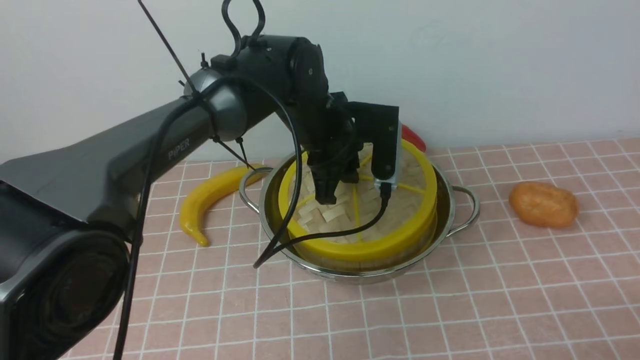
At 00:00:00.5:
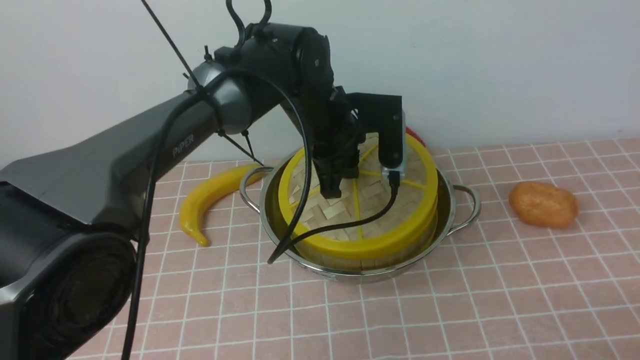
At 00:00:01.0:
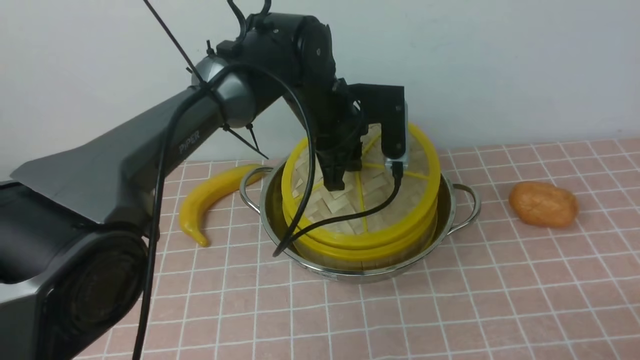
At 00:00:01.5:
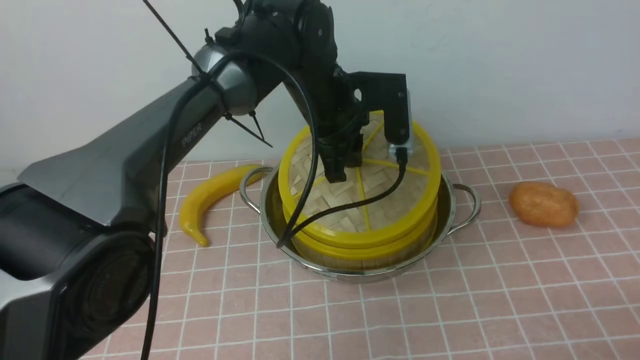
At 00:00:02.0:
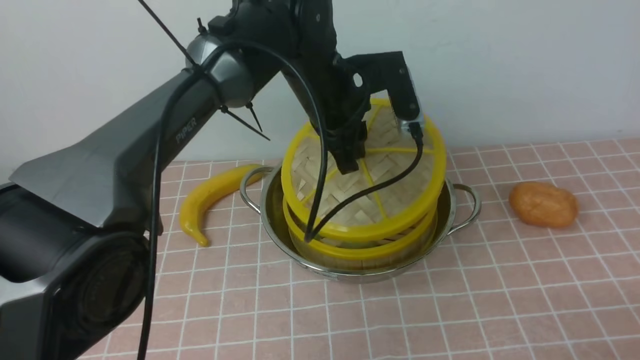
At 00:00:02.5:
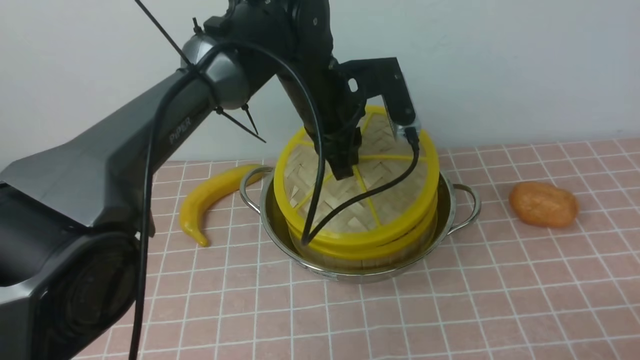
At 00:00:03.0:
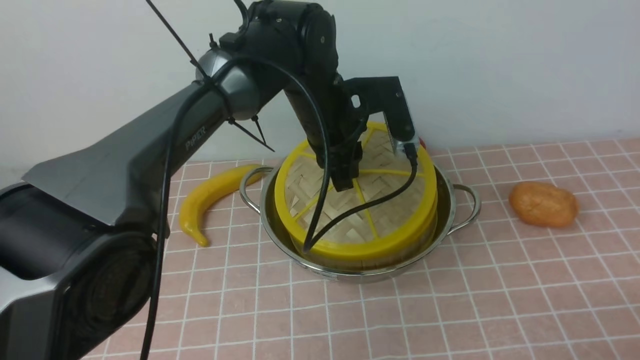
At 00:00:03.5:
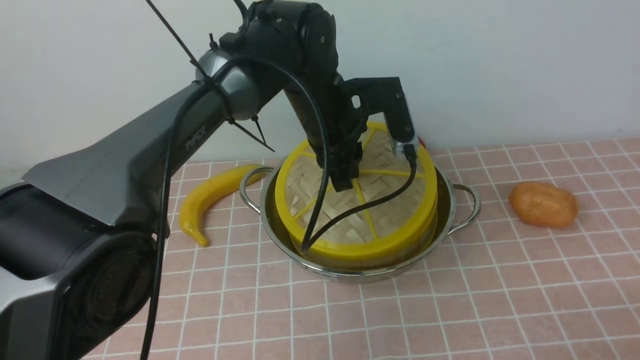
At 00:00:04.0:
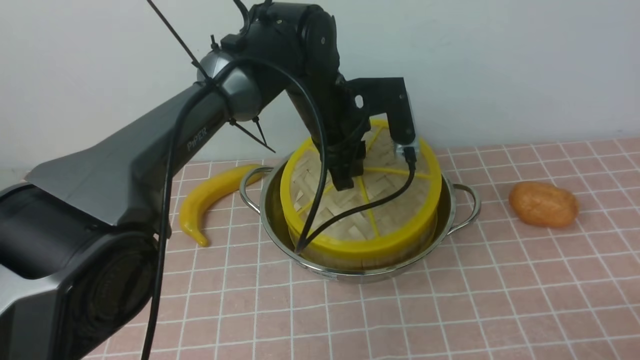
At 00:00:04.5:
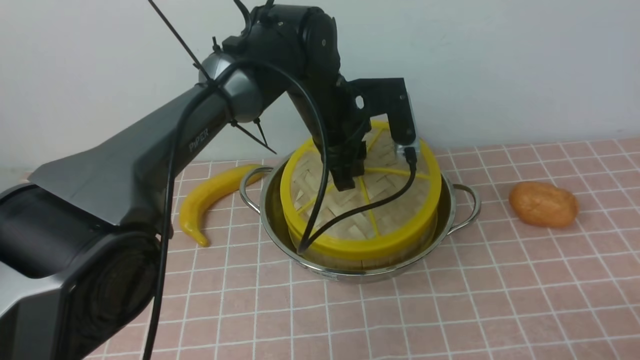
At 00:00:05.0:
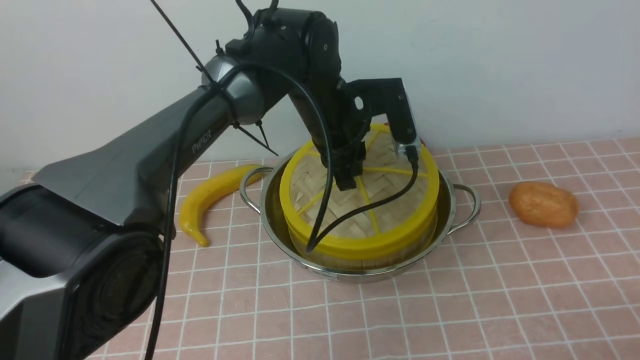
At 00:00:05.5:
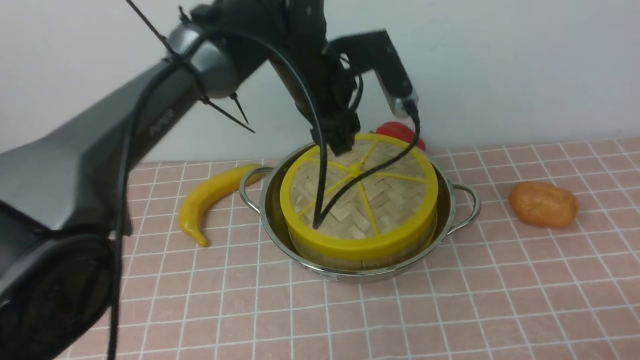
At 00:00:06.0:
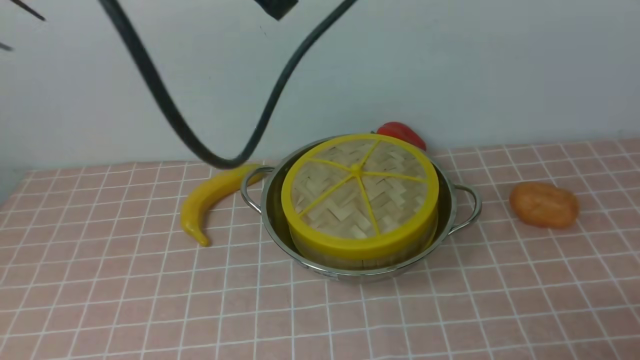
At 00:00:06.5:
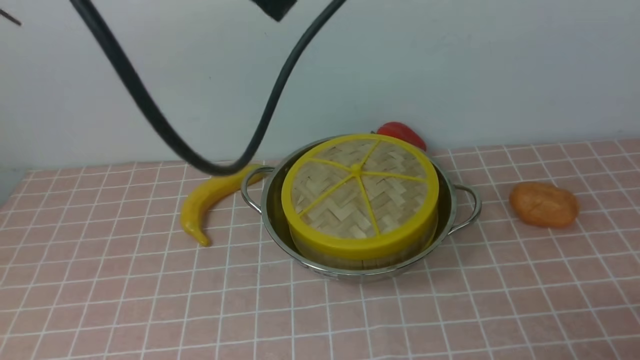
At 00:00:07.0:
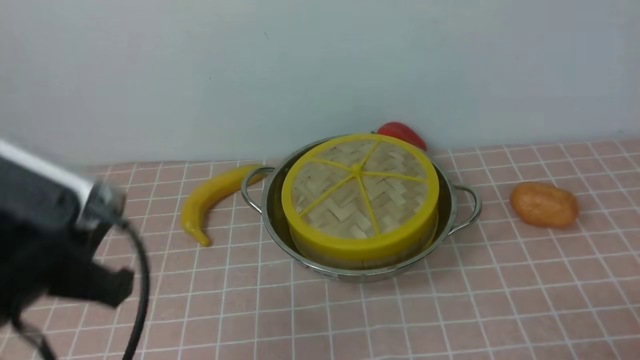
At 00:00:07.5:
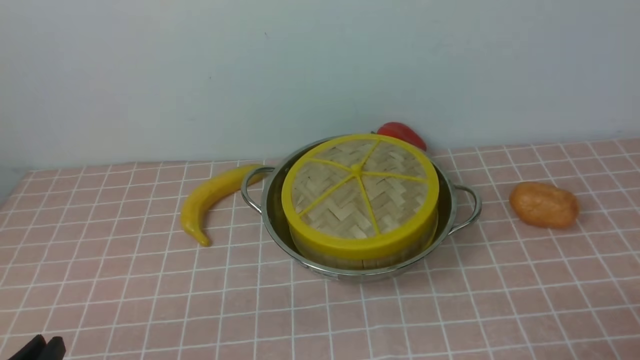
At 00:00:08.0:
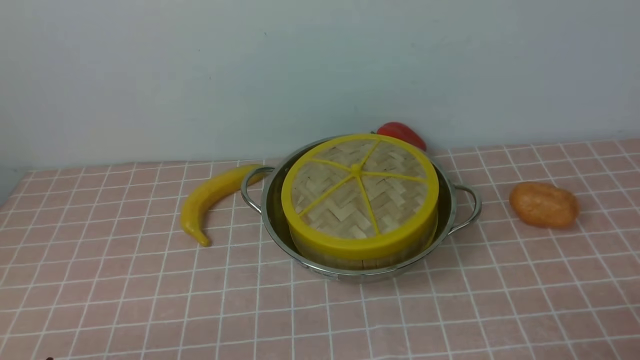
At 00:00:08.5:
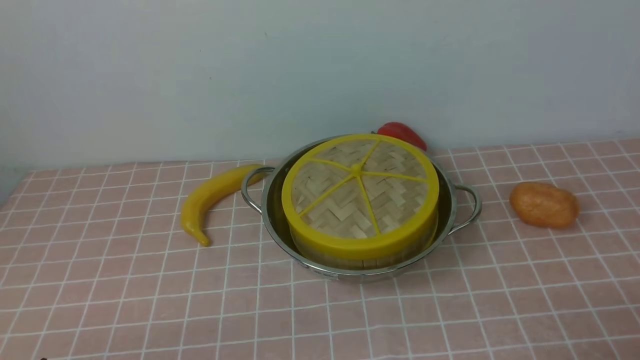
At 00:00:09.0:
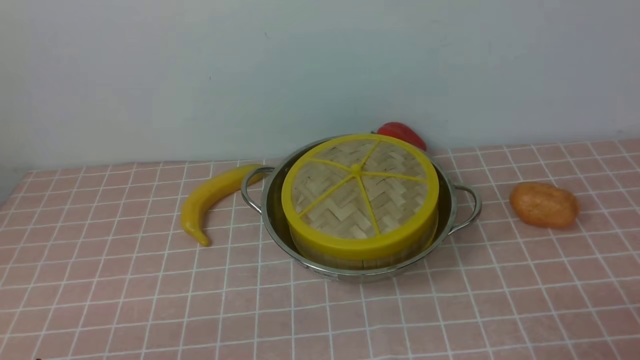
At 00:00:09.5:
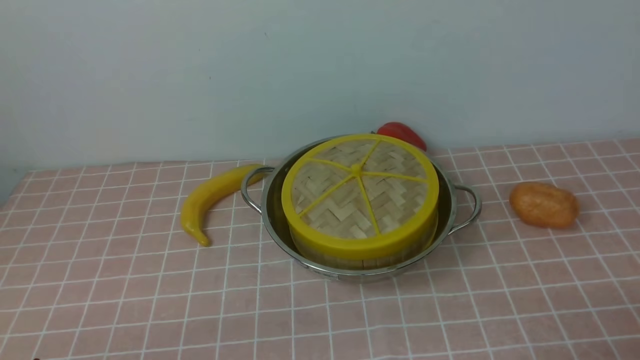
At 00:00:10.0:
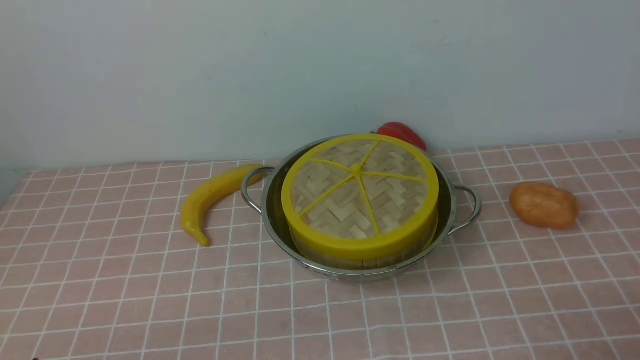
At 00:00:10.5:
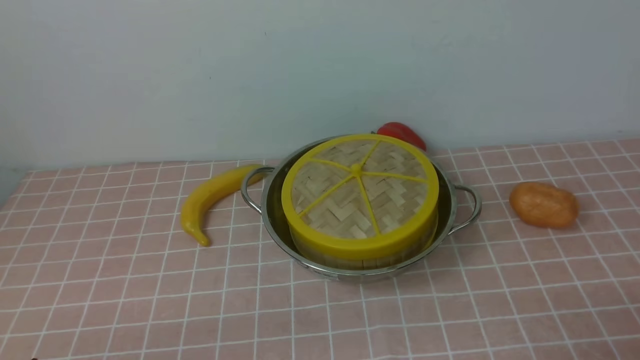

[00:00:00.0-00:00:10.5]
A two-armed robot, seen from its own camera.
Task of the whole recording: place the steamer in the pot on the pink tablecloth, and put the lid on the steamer.
Step, 00:00:00.0 to 00:00:05.0: use the left arm to place the steamer lid on the steamer.
00:00:02.0 to 00:00:04.0: The grippers make only small movements.
00:00:04.0 to 00:00:06.5: The left gripper shifts approximately 25 cm upward, backward and to the left, and closes.
00:00:06.5 to 00:00:08.5: The left gripper heads downward, backward and to the left, covering roughly 40 cm, and opens its fingers.
00:00:08.5 to 00:00:10.5: Neither gripper changes place.
